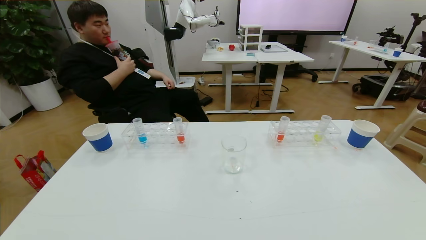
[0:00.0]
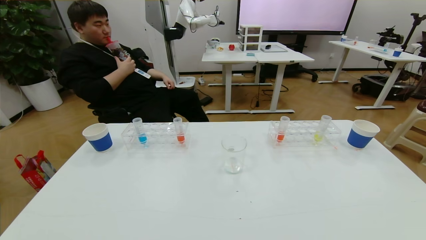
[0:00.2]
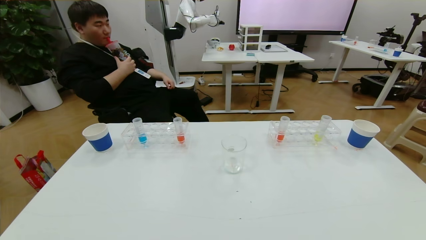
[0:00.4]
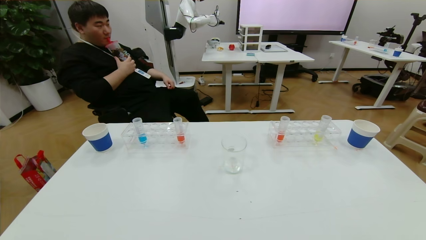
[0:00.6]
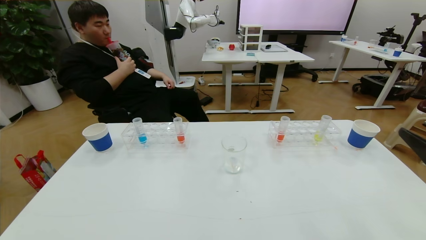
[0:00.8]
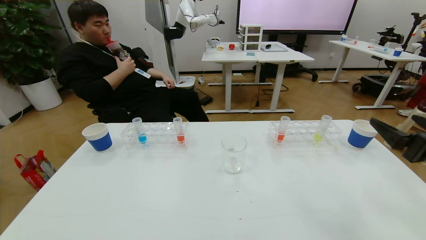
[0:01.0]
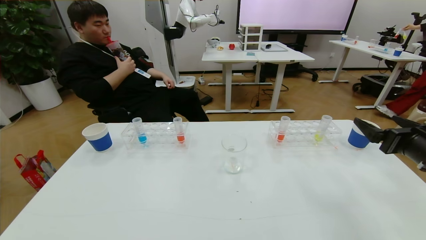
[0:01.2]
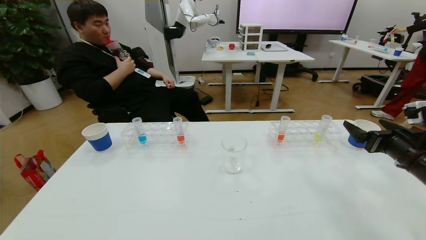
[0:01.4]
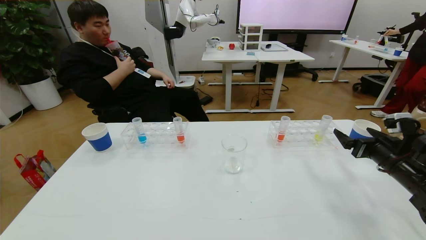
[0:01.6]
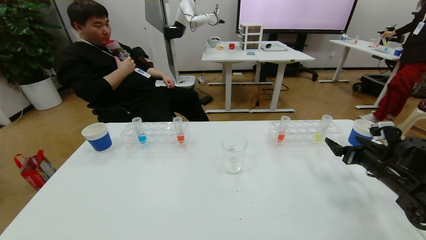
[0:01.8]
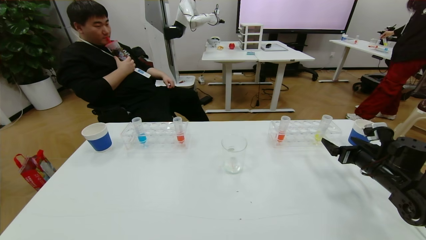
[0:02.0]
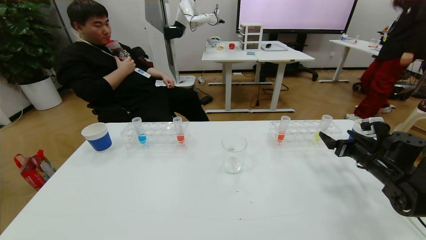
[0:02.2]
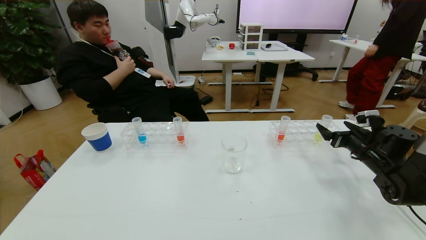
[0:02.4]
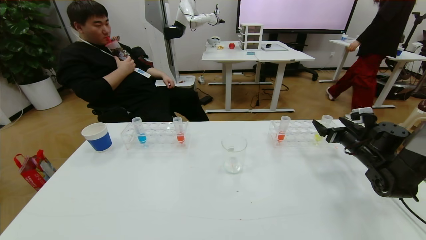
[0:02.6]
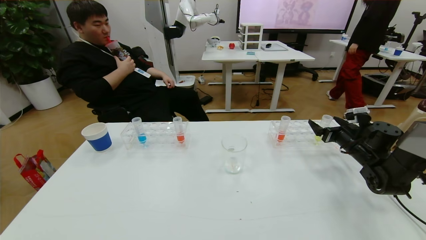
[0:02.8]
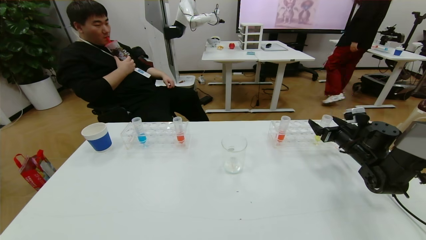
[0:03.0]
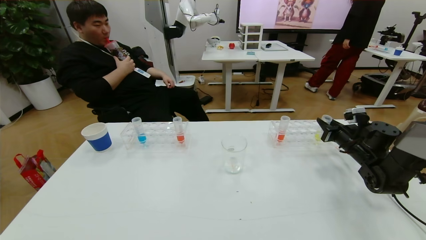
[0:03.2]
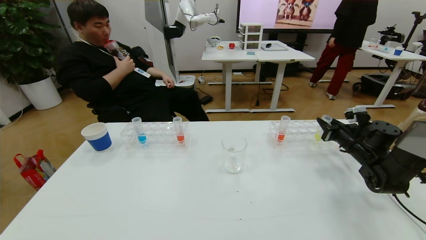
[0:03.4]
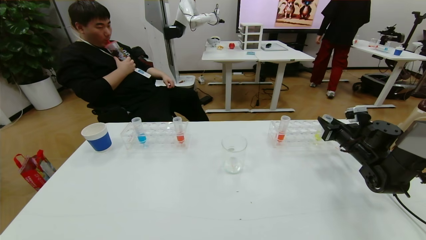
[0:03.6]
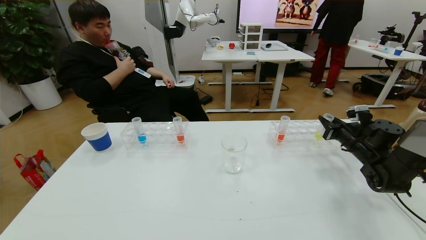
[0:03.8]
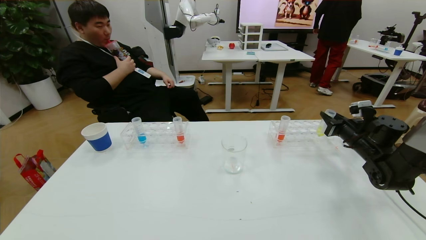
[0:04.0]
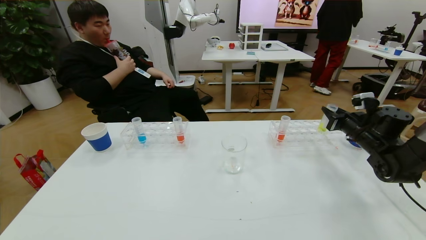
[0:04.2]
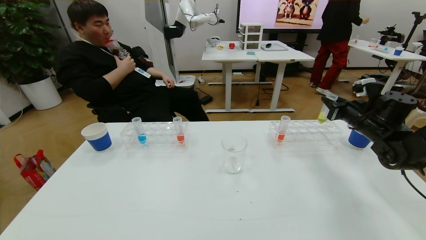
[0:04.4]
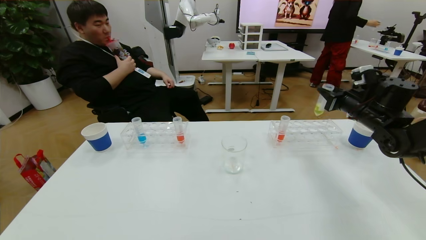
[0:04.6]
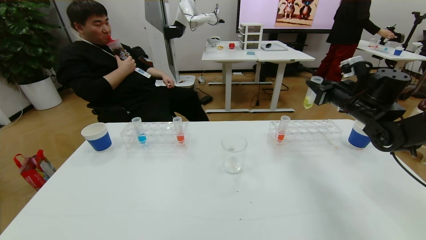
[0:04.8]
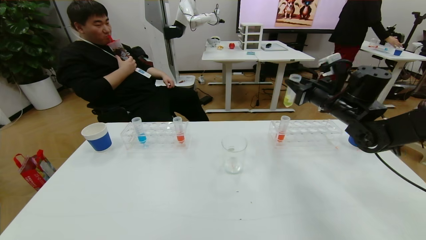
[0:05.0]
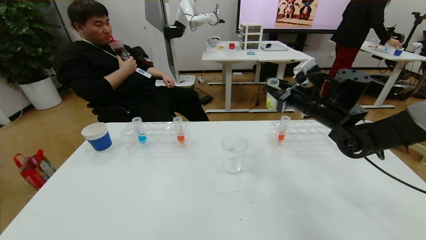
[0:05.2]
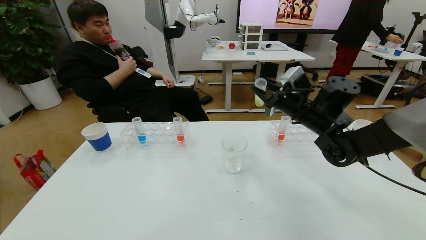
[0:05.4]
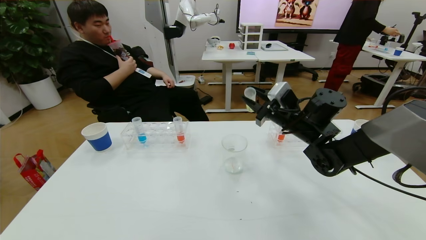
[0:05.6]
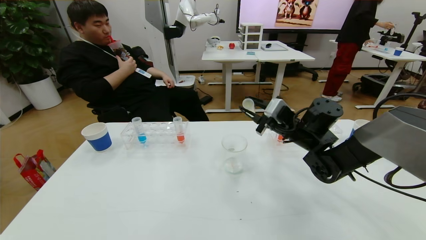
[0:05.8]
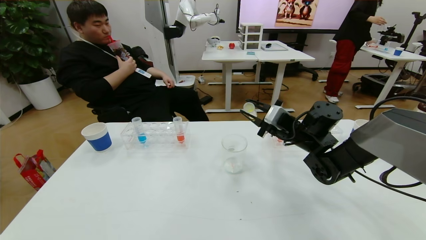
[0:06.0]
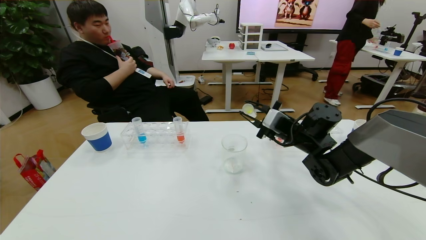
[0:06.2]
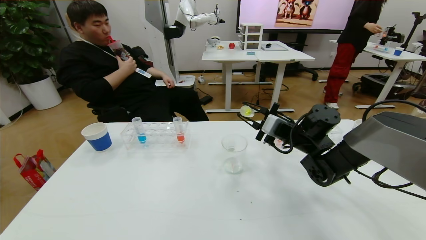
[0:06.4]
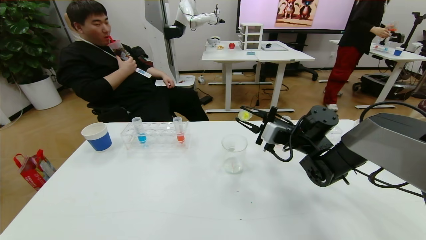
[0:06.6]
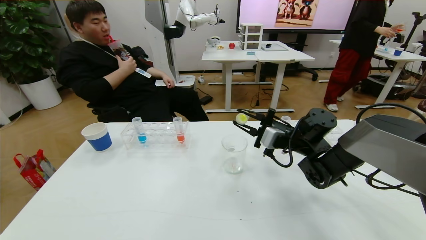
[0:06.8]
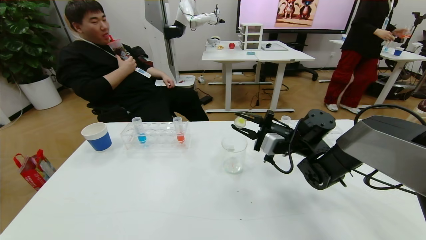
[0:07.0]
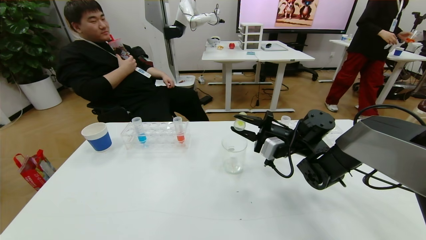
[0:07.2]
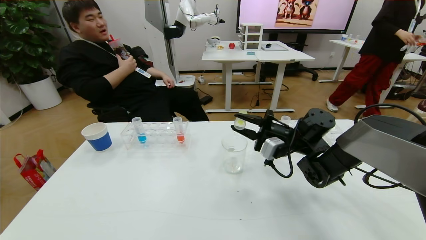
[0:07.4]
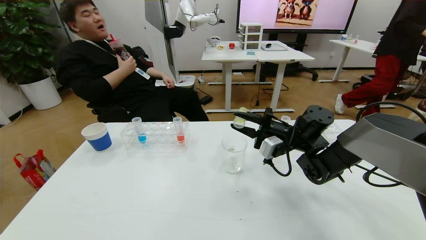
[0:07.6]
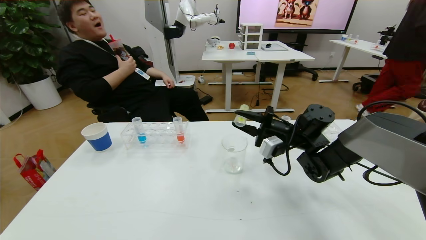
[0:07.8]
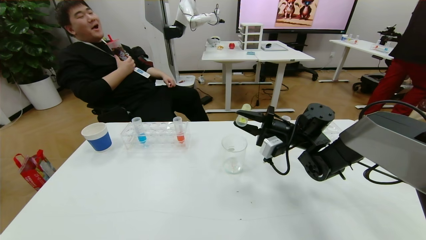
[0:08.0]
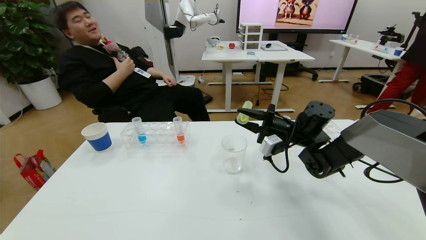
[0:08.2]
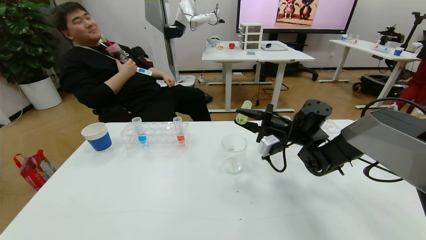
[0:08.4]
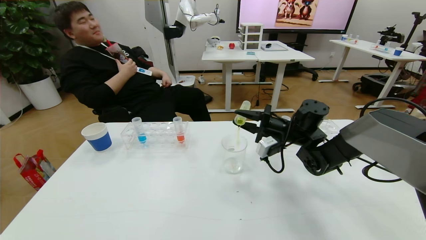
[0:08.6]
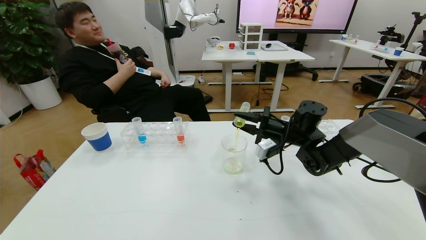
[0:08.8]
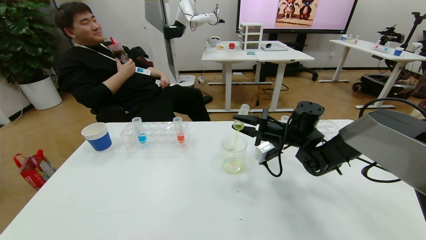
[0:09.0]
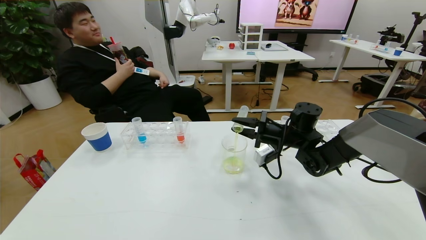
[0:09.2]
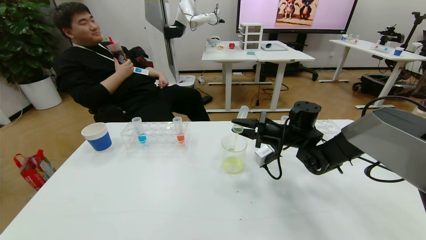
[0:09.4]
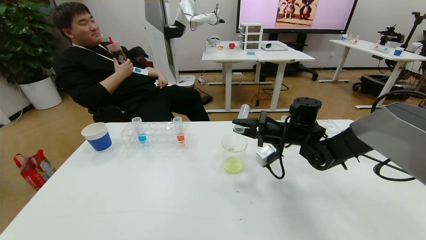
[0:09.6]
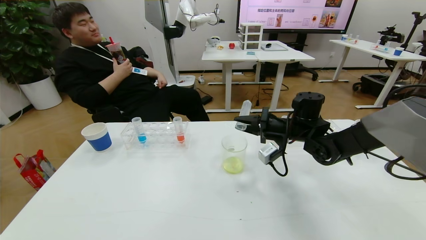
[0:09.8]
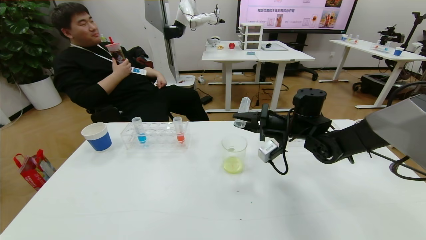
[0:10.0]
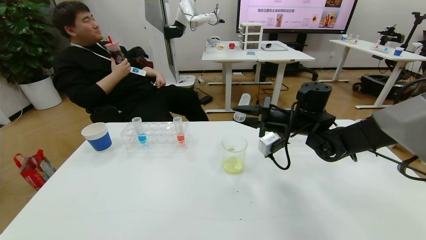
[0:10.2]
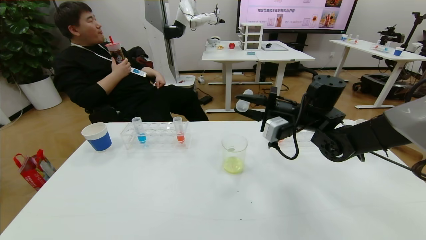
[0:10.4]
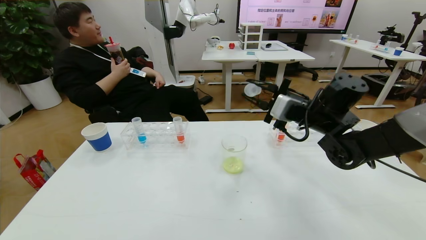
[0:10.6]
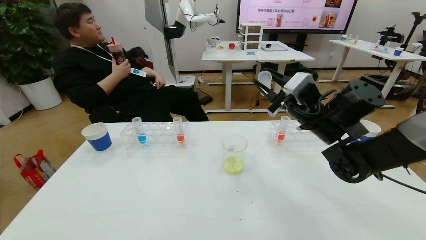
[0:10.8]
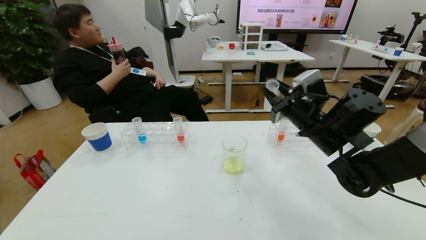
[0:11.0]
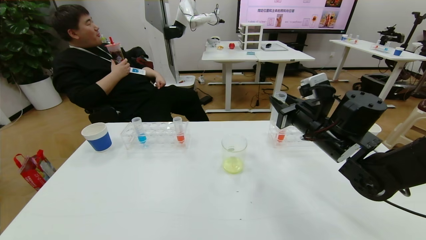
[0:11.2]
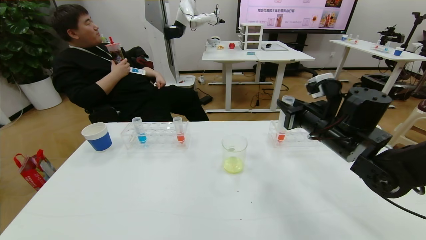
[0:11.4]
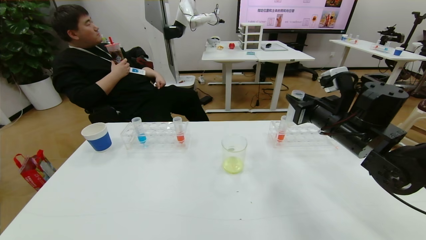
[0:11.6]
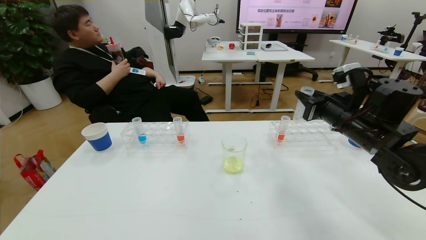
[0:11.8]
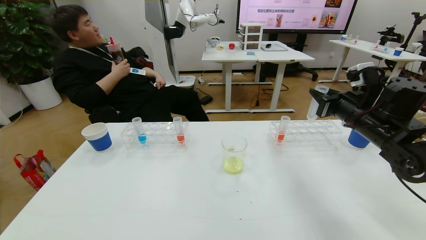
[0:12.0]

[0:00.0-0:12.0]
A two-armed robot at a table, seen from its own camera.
Task of the whole recording: pick up the test tube with yellow pigment and the test tube with blue pigment by grippers and pour them into the beaker.
0:00.0 to 0:01.6: The right gripper goes some 30 cm forward.
0:01.6 to 0:03.0: The right gripper shifts approximately 10 cm forward.
0:03.0 to 0:04.4: The right gripper goes about 10 cm upward, and closes its fingers.
0:04.4 to 0:06.0: The right gripper shifts about 20 cm to the left.
0:07.6 to 0:09.0: The grippers stay close to where they were, moving slightly.
0:09.0 to 0:10.4: The right gripper goes approximately 10 cm upward.
0:10.4 to 0:12.0: The right gripper heads to the right, covering about 10 cm.

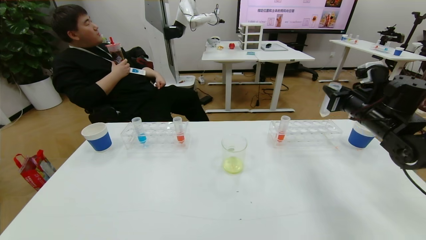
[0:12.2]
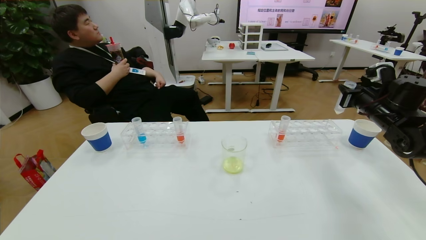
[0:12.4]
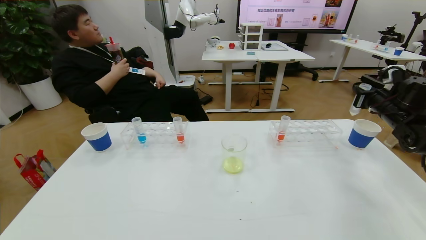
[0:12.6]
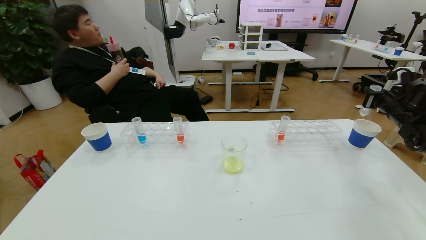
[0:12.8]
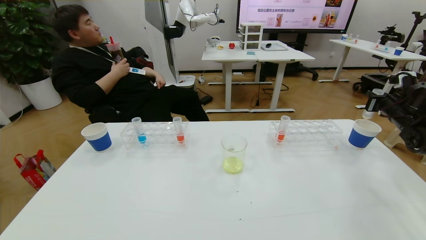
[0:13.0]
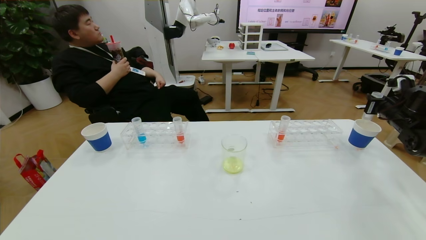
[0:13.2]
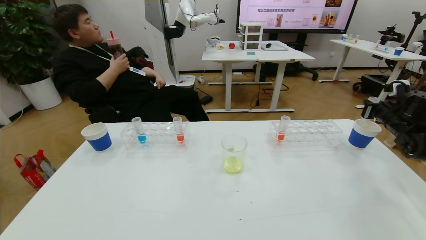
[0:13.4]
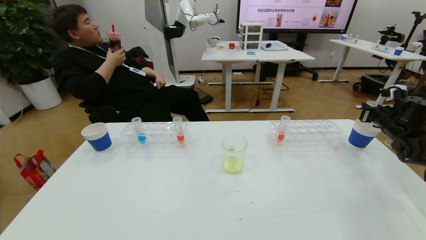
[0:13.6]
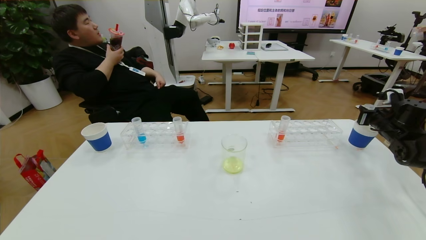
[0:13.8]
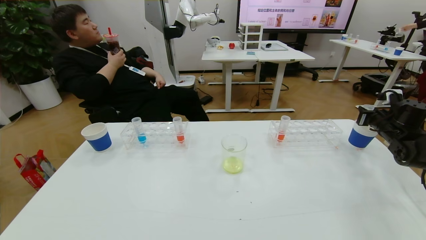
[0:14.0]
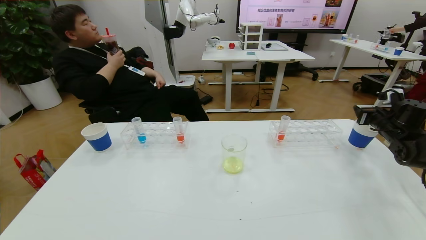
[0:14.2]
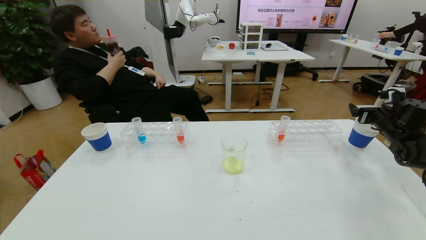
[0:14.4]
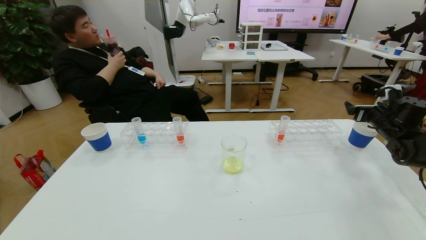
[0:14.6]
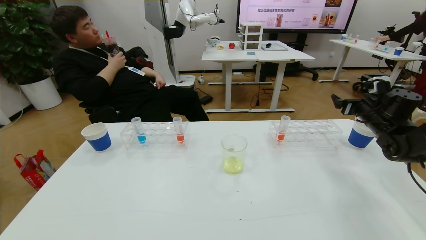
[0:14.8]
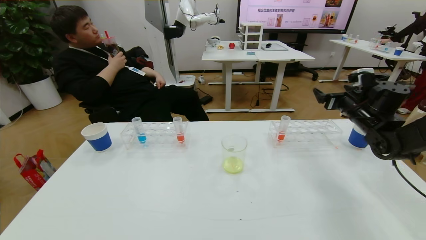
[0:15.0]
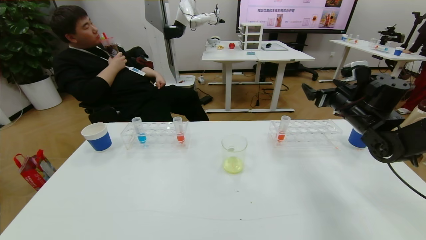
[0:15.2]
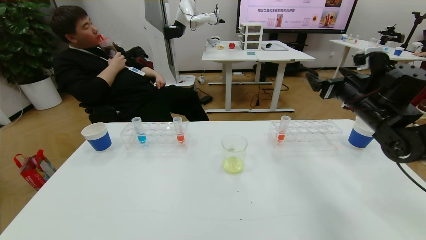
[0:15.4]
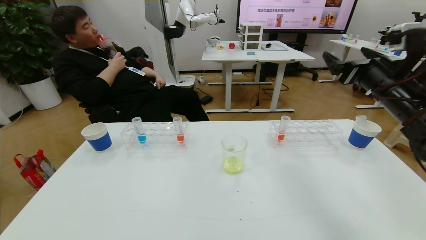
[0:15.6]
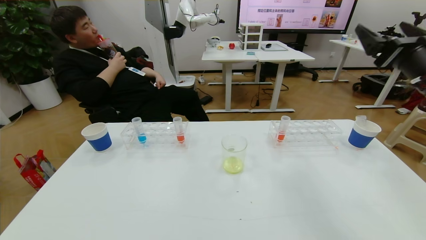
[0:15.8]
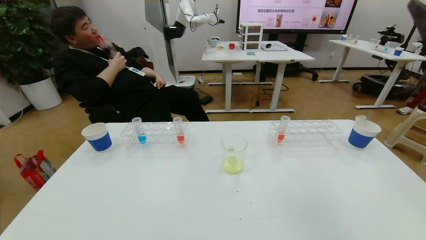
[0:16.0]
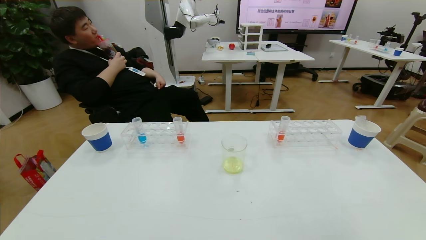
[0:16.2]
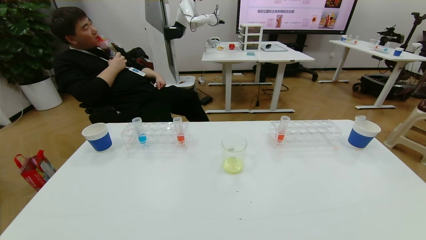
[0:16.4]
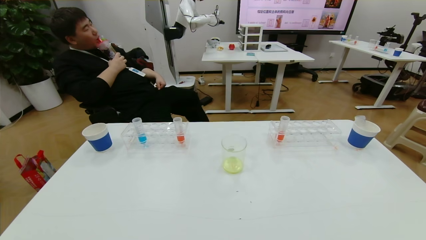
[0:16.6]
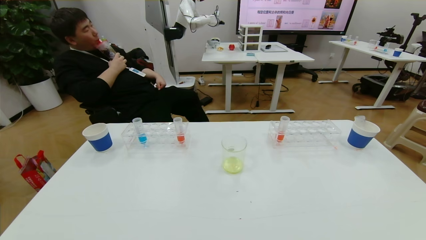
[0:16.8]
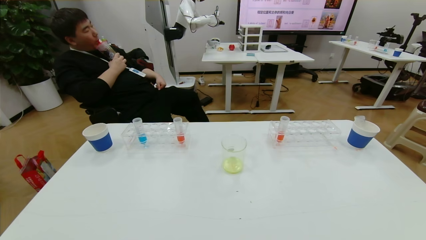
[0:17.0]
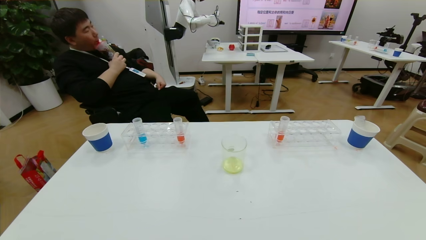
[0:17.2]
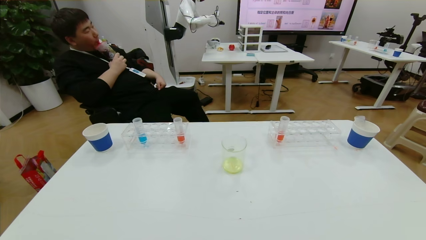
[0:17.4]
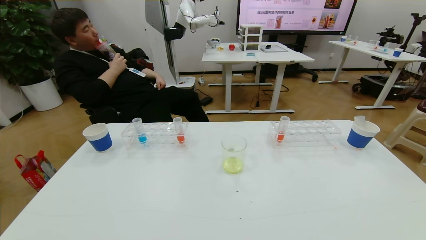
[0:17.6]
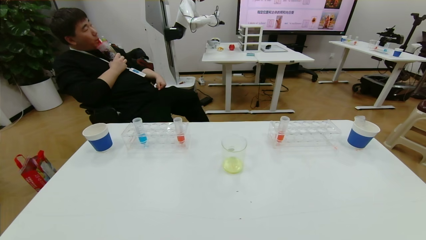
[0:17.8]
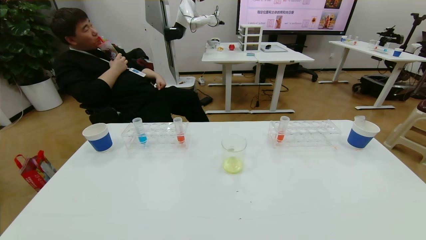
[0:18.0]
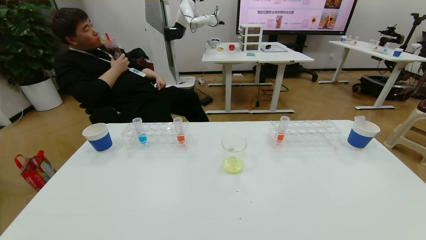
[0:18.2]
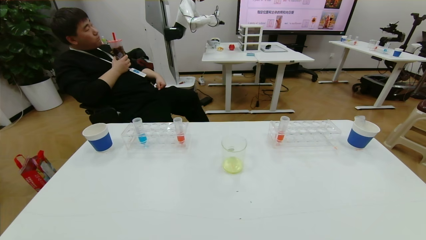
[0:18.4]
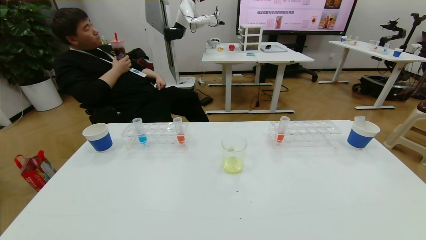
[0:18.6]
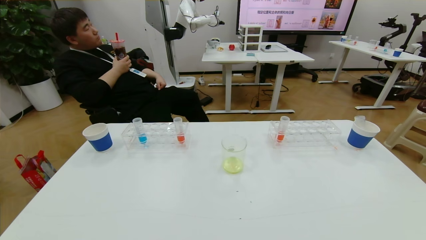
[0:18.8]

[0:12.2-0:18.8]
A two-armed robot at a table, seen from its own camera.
Task of the whole recording: pick up the test tube with yellow pigment and the test tube with blue pigment by grippers and pour them into the beaker.
Step, 0:12.2 to 0:18.2: Pour the yellow reagent into the graduated cylinder and place the test tube into the paper cup.
0:12.2 to 0:13.8: The right gripper goes about 15 cm to the right and downward.
0:13.8 to 0:15.4: The right gripper travels to the left and upward by approximately 20 cm, and opens.
0:15.4 to 0:17.2: The right gripper goes some 40 cm backward.
